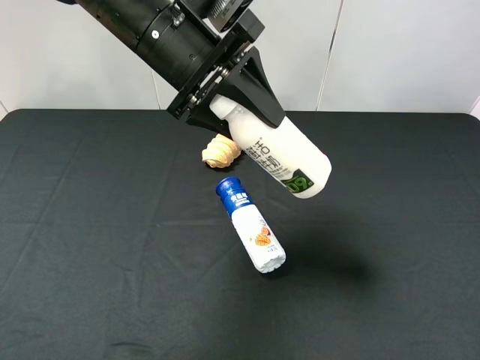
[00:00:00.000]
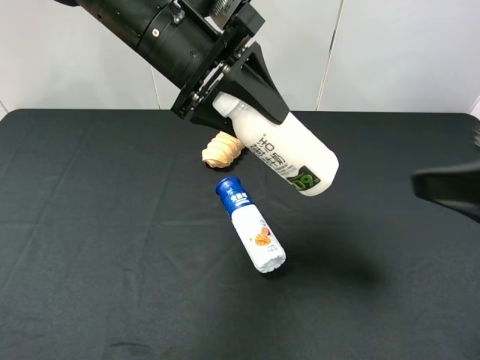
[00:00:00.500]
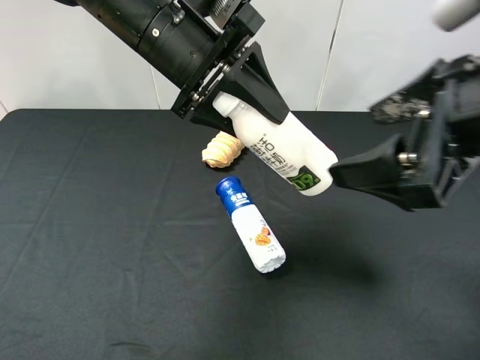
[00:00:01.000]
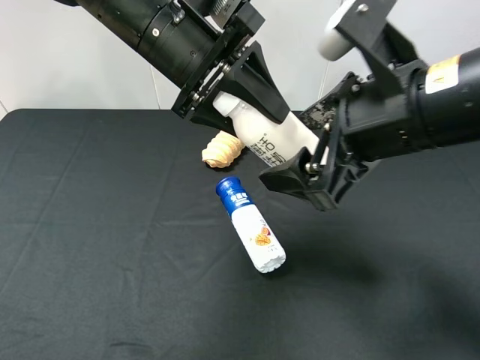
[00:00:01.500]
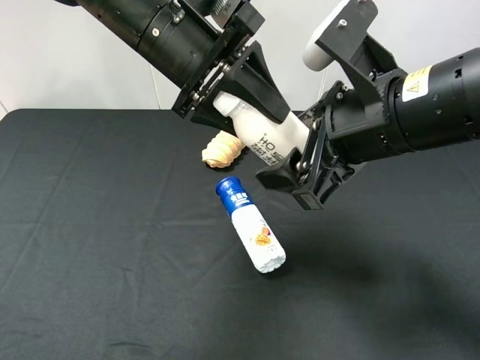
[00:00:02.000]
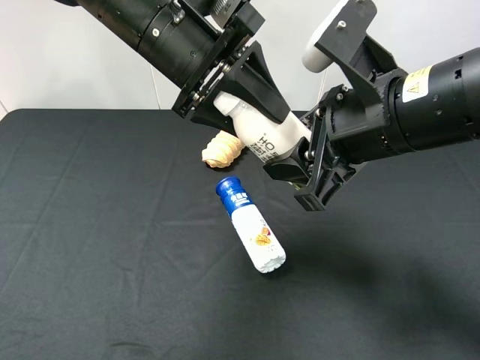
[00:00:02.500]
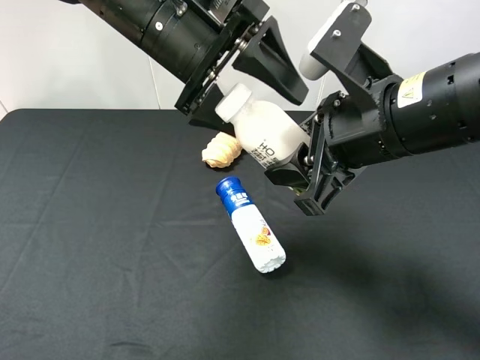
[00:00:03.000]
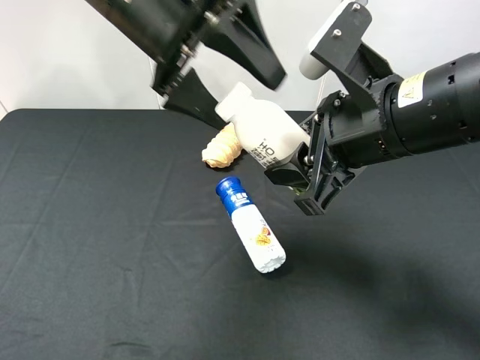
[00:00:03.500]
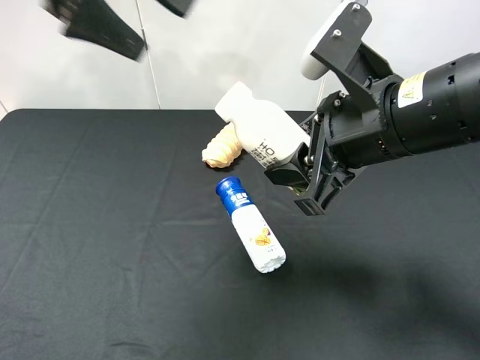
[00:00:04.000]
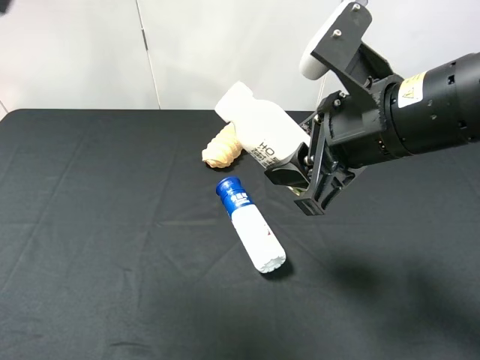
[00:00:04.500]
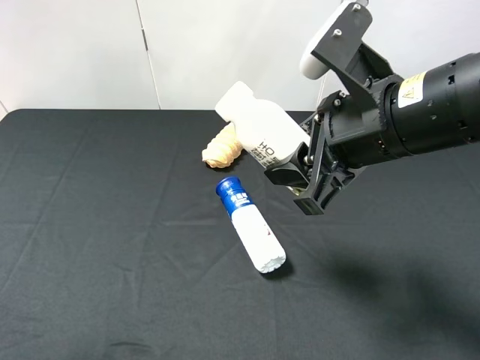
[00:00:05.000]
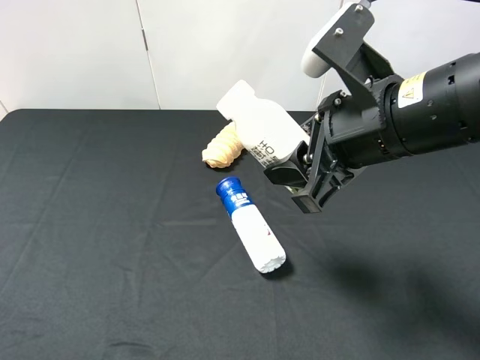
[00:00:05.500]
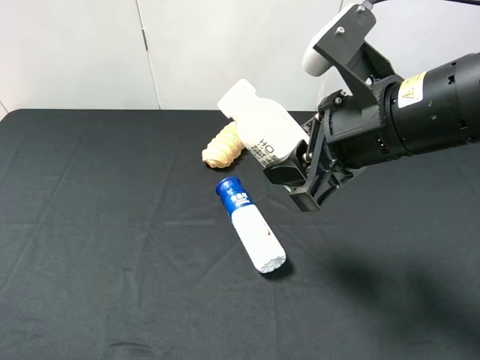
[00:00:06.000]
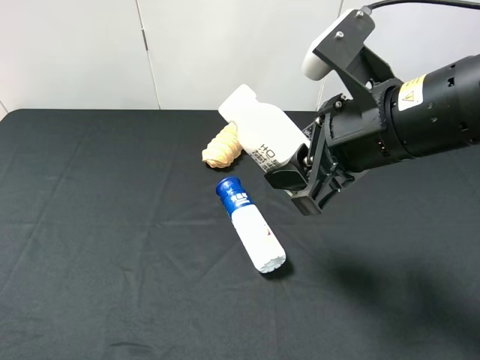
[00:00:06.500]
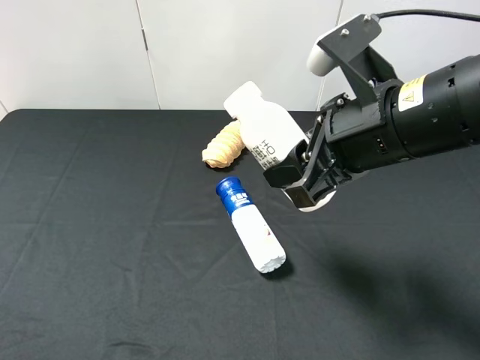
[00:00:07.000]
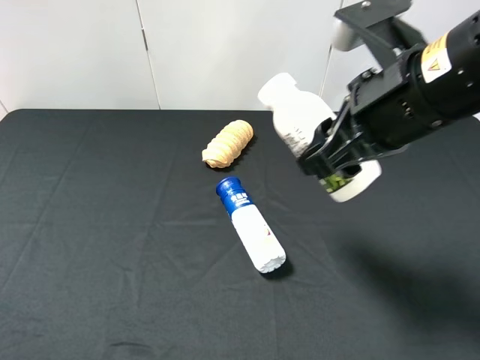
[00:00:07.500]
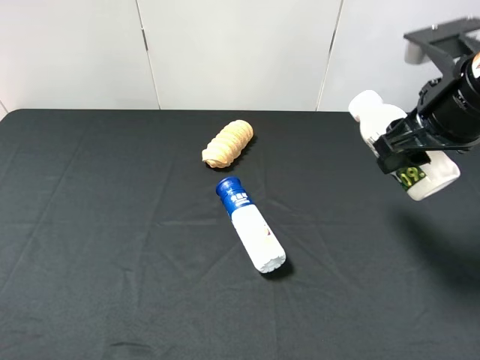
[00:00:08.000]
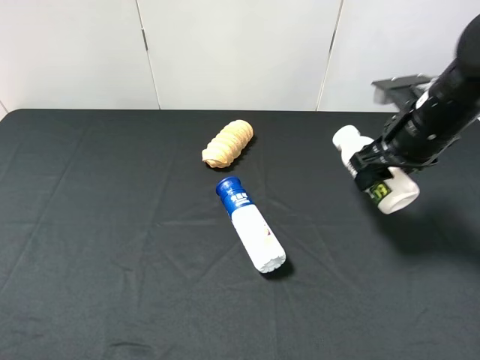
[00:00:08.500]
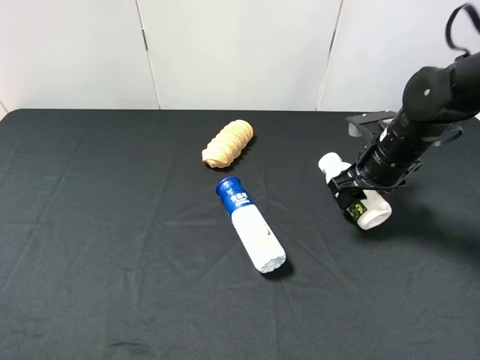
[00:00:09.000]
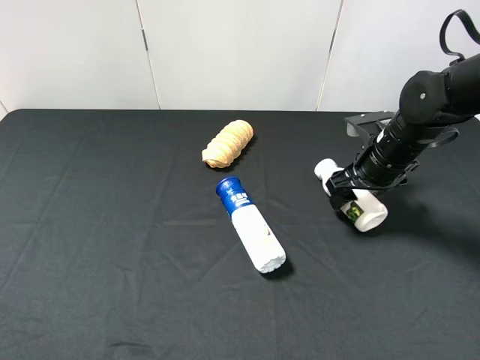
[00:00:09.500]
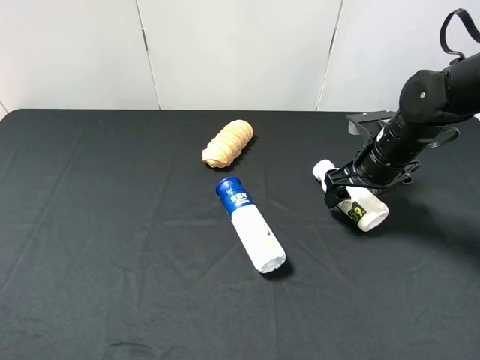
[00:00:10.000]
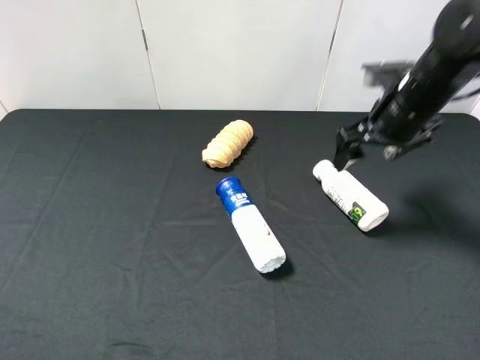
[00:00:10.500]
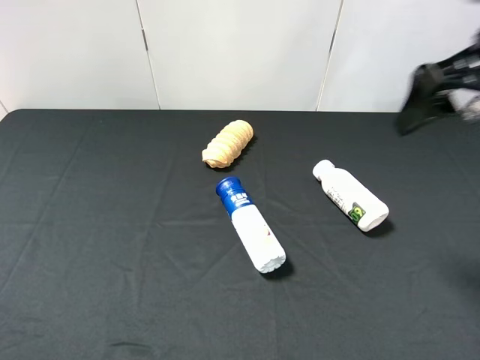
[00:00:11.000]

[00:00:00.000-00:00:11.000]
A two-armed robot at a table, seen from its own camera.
Task of the whole recording: use the left gripper to pick up the item and transfer it from the left gripper to the right gripper.
00:00:00.000 to 00:00:02.000: The right gripper moves to the left and forward, approximately 20 cm, and closes up.
00:00:02.000 to 00:00:03.500: The left gripper opens.
00:00:03.500 to 00:00:05.500: The left gripper travels backward and to the left by some 40 cm.
00:00:07.500 to 00:00:09.000: The right gripper goes approximately 20 cm downward, forward and to the right.
00:00:09.000 to 00:00:11.000: The right gripper heads upward and backward, covering some 25 cm, and opens.

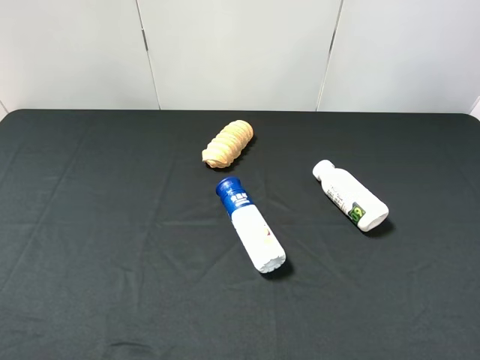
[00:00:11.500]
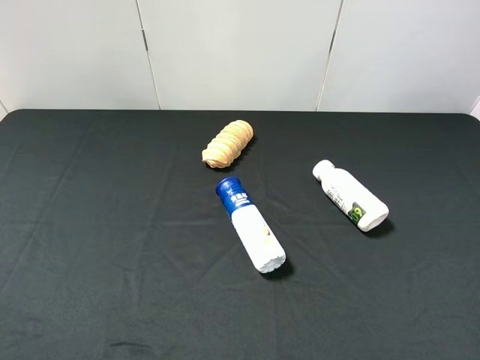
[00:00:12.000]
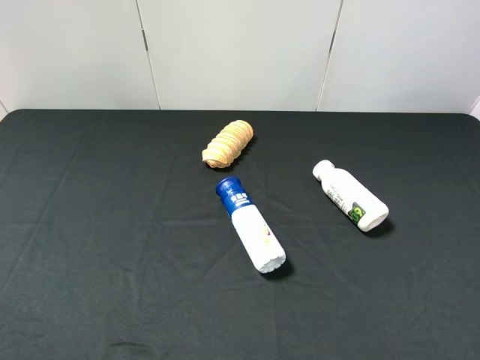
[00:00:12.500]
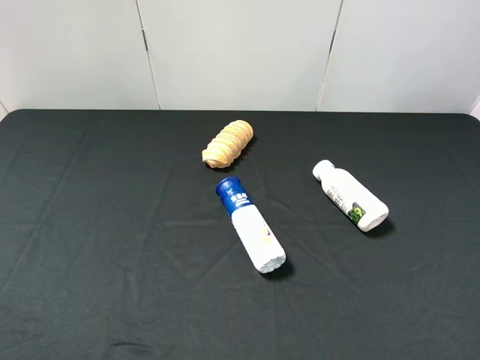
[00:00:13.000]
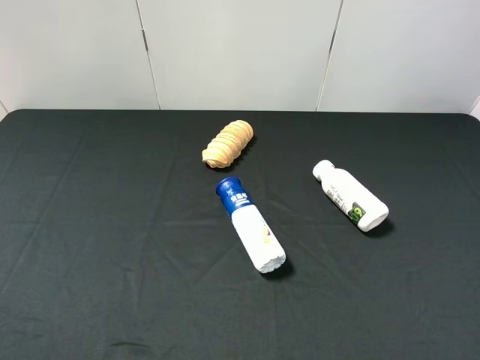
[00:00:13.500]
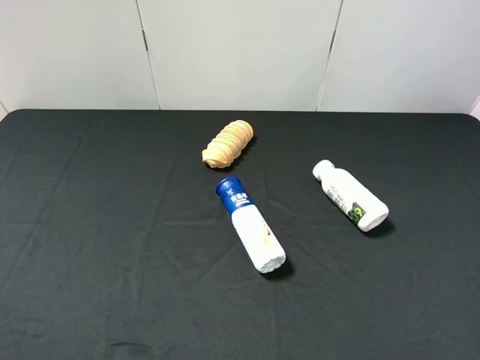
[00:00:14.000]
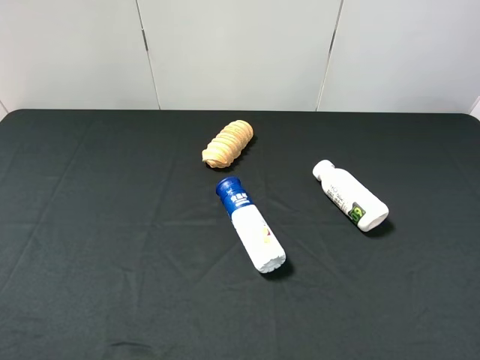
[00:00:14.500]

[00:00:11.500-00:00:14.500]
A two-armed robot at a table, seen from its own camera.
Task of the whole recording: use the left gripper to pick up the item and transfer it from the left gripper to the right gripper.
00:00:13.000 to 00:00:14.500: The two grippers keep their place.
